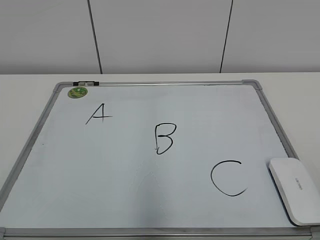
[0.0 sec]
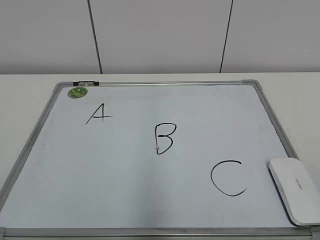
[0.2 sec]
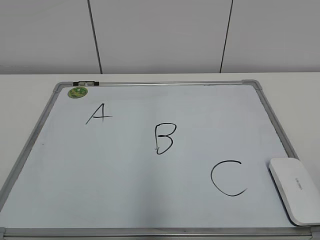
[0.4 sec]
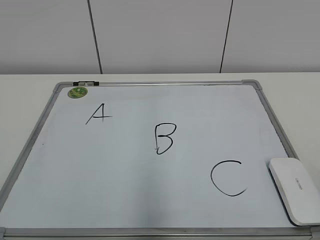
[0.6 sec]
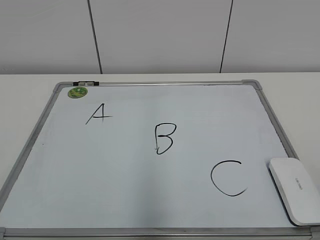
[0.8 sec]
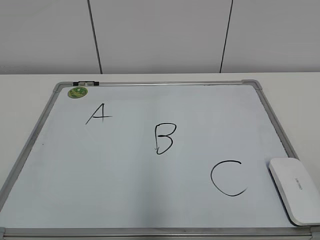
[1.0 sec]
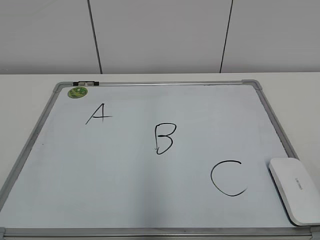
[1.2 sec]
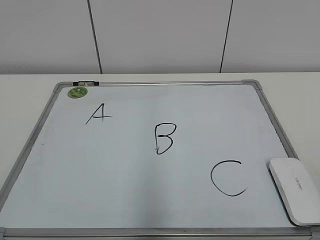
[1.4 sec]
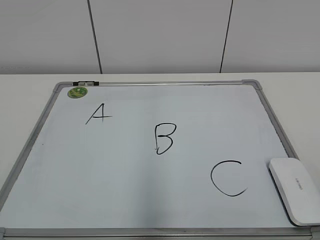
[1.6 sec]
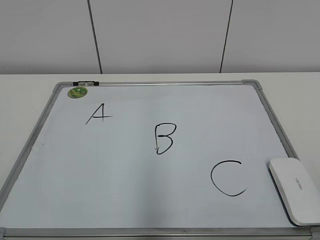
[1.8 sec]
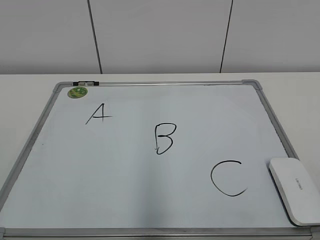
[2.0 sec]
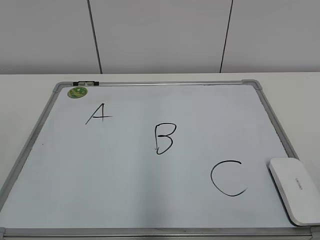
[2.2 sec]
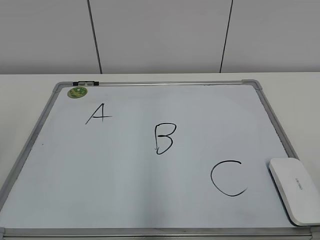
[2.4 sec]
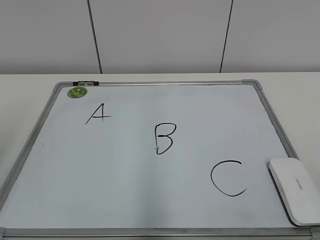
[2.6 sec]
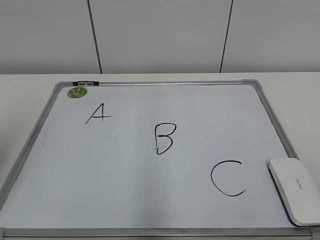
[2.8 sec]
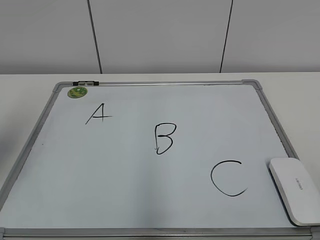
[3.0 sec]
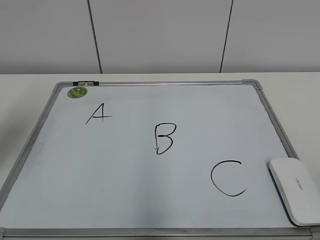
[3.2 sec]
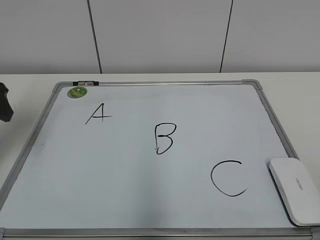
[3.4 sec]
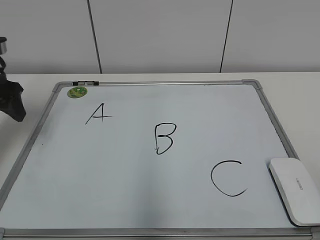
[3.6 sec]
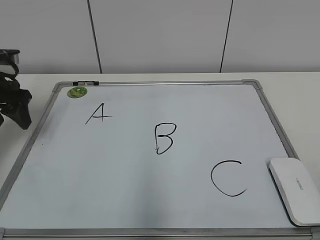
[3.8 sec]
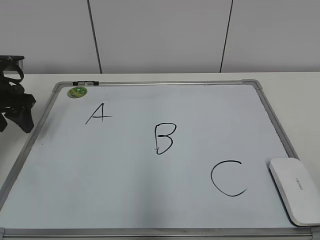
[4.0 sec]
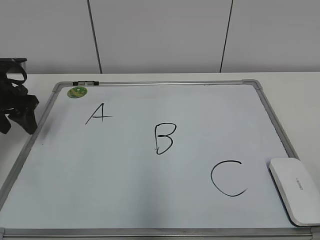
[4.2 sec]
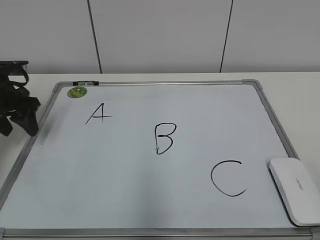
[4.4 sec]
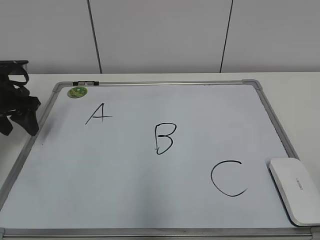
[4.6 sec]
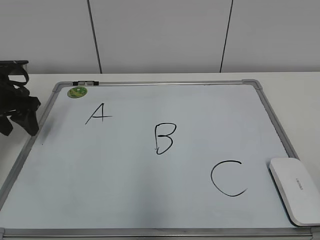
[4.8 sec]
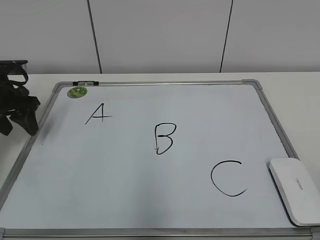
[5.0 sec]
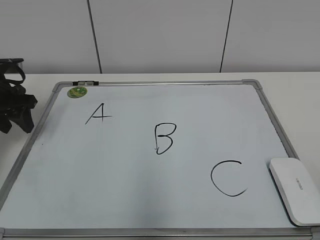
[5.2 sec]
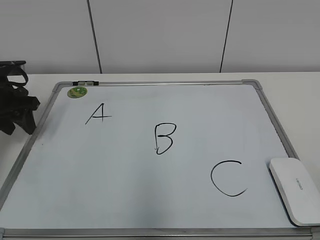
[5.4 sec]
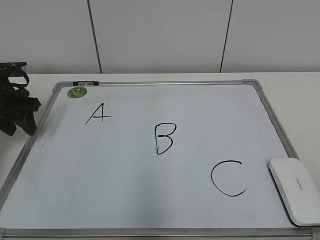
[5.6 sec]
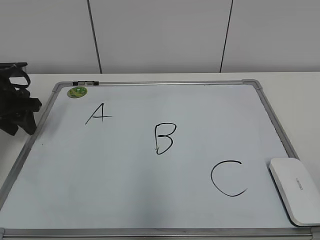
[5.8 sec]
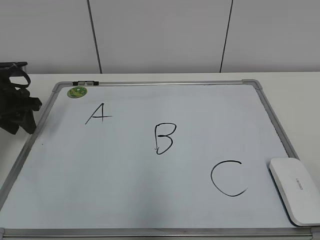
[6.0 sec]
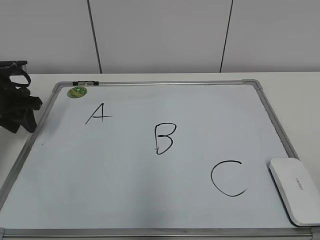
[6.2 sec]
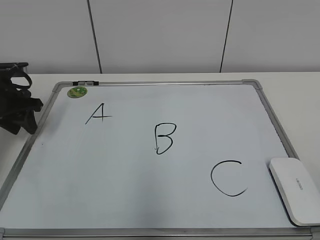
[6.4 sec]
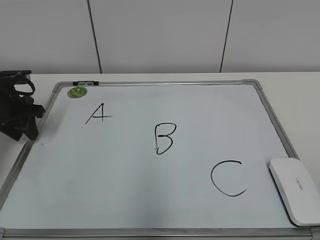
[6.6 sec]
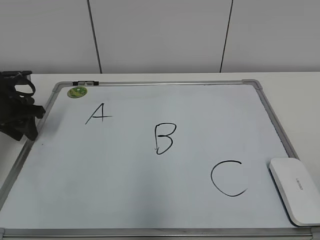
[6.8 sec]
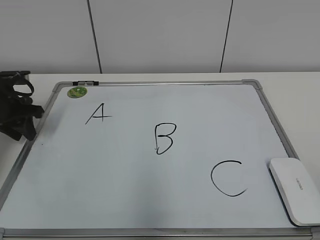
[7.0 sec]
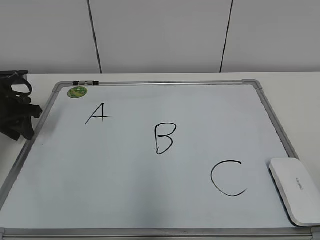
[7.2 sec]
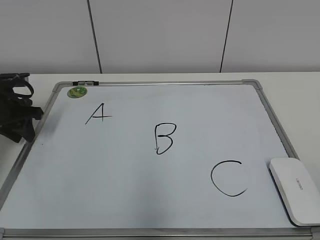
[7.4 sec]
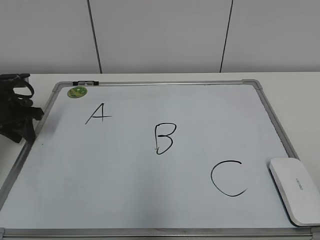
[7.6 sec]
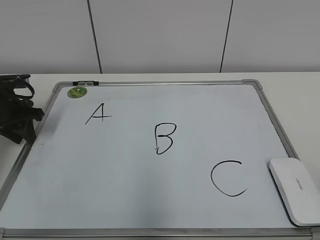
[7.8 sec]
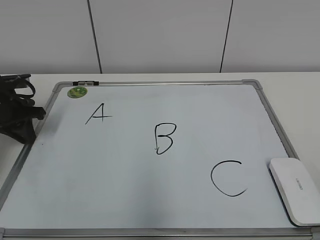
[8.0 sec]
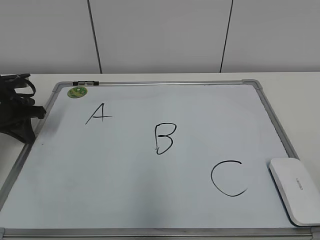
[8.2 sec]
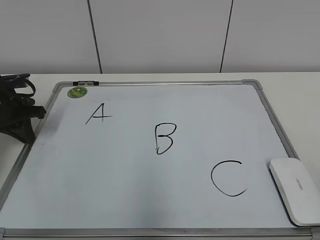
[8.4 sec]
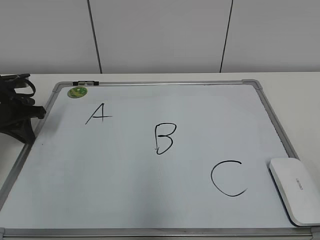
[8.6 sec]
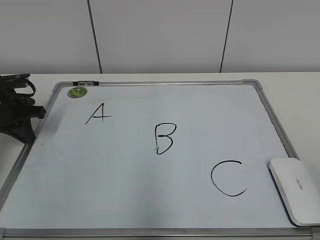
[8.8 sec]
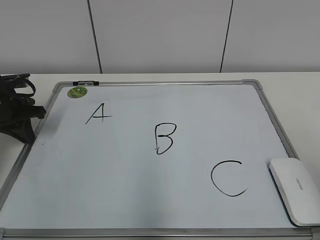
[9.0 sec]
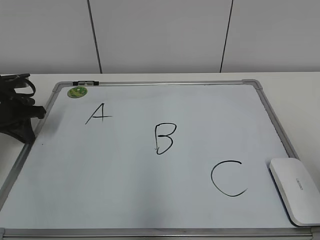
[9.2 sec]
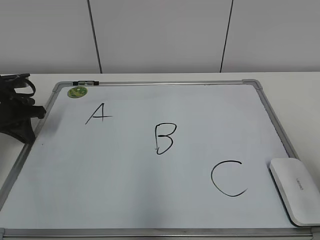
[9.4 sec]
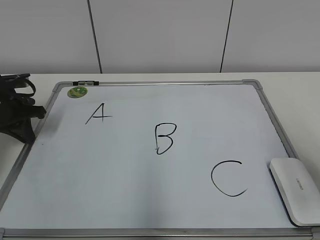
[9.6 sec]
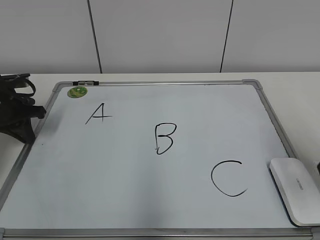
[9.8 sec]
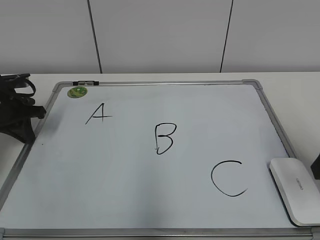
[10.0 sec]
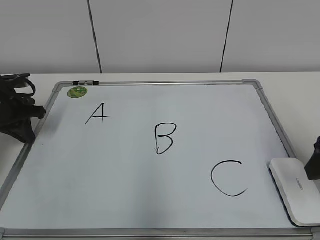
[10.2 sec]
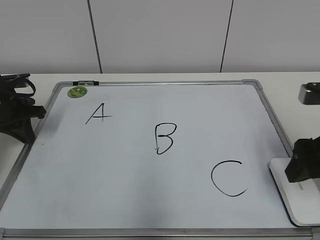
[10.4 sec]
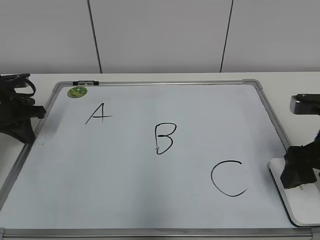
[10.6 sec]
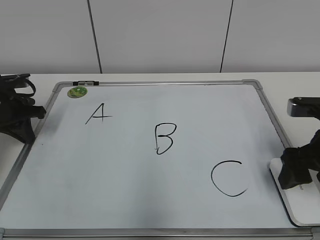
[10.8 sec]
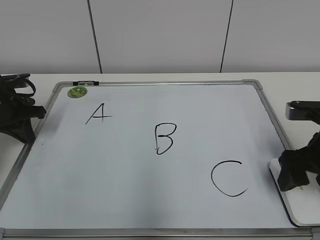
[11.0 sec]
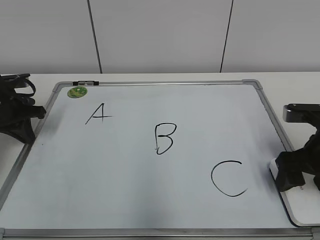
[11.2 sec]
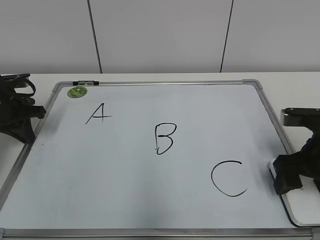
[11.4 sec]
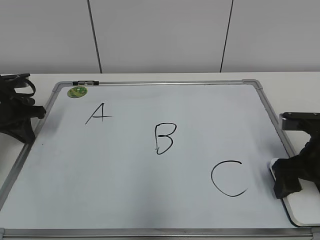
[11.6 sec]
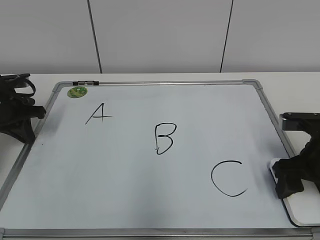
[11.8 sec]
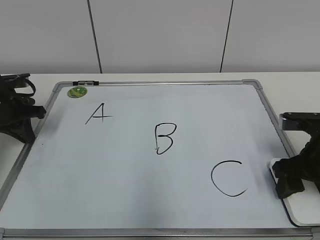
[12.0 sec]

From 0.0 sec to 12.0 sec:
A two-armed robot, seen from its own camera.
Task of the whole recording: pick up the eraser on the blackboard and erase the letter "B".
Step, from 0.0 sec to 8.0 sec: Hold the drawing board steady with your left hand.
Step, from 8.4 sec to 12.0 sec: Grab the eraser with your right hand.
From 1.6 sec to 3.0 sec: The left gripper moves forward, some 25 cm.
From 3.0 sec to 4.4 sec: The left gripper goes about 20 cm forward and downward.
From 6.0 sec to 7.6 sec: The grippers stay close to where they were, moving slightly.
From 9.0 sec to 10.4 sec: The right gripper moves forward and downward, approximately 20 cm, and opens.
From 10.4 sec to 12.0 sec: The right gripper travels downward by roughly 5 cm, and closes up.

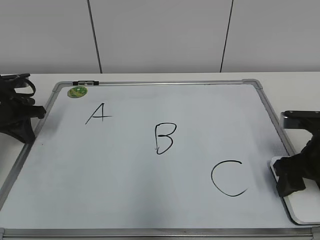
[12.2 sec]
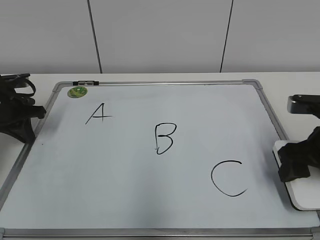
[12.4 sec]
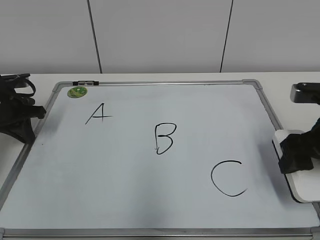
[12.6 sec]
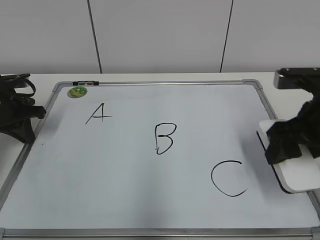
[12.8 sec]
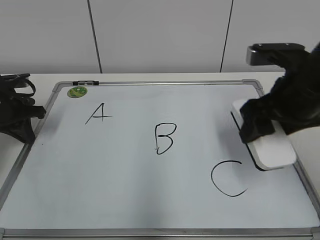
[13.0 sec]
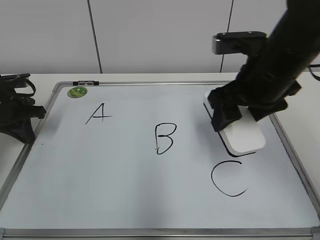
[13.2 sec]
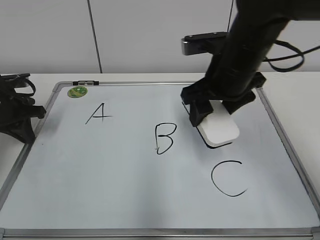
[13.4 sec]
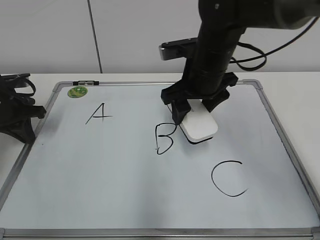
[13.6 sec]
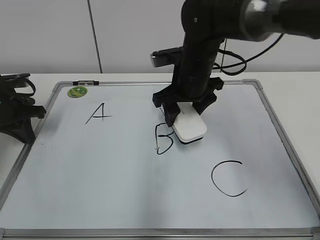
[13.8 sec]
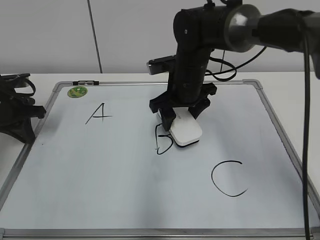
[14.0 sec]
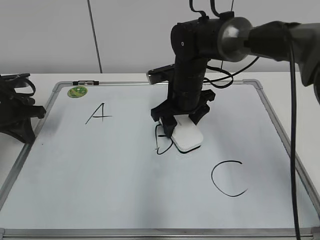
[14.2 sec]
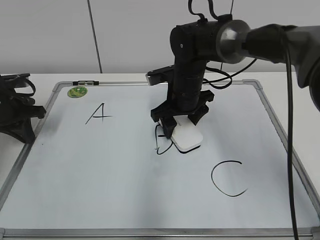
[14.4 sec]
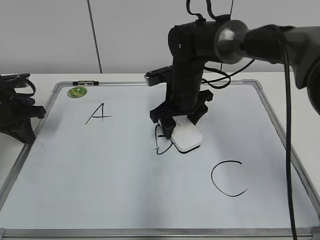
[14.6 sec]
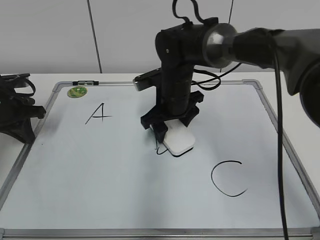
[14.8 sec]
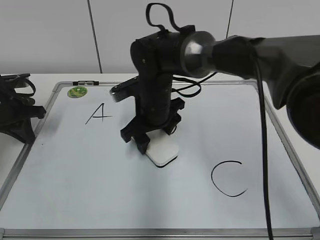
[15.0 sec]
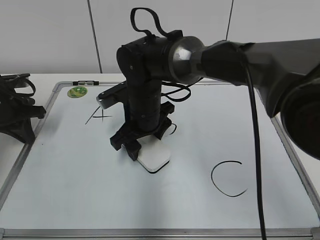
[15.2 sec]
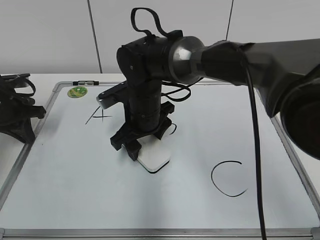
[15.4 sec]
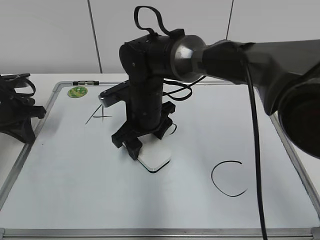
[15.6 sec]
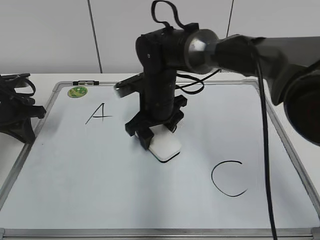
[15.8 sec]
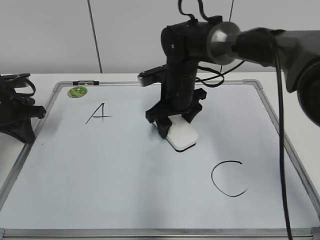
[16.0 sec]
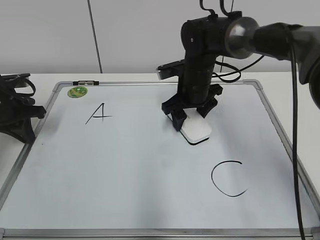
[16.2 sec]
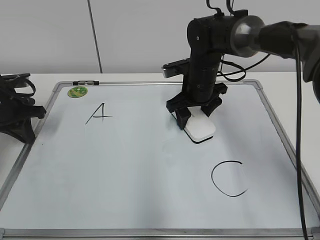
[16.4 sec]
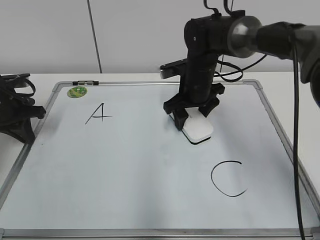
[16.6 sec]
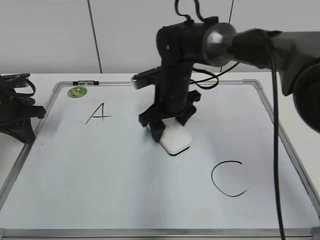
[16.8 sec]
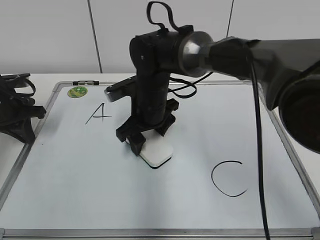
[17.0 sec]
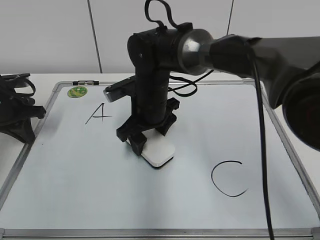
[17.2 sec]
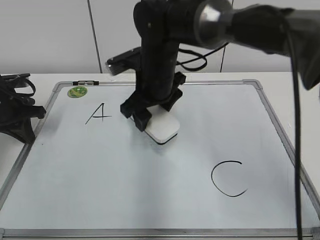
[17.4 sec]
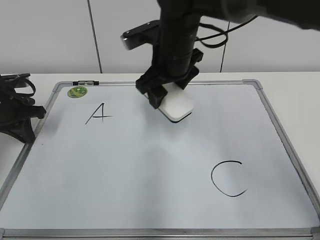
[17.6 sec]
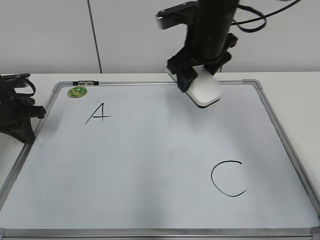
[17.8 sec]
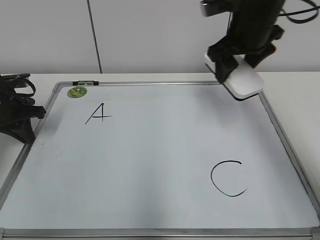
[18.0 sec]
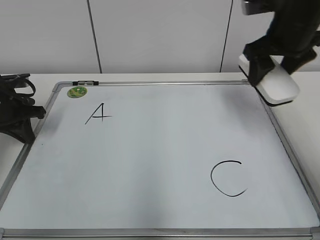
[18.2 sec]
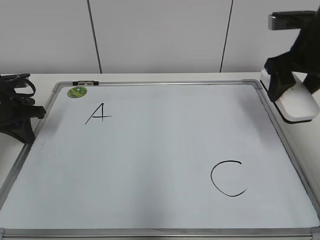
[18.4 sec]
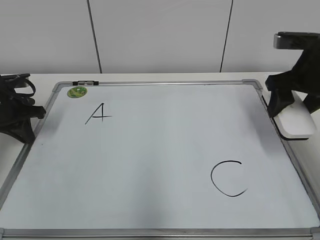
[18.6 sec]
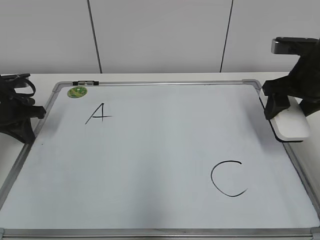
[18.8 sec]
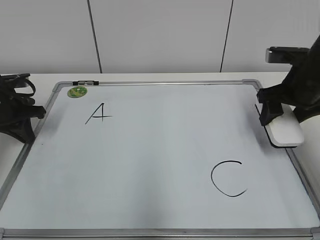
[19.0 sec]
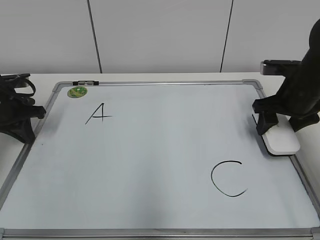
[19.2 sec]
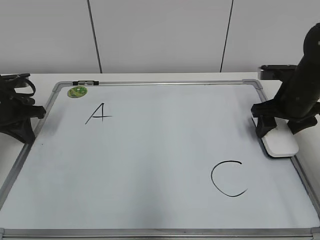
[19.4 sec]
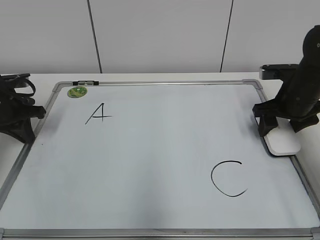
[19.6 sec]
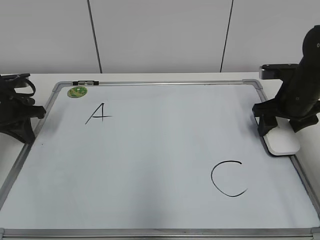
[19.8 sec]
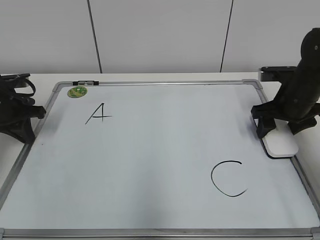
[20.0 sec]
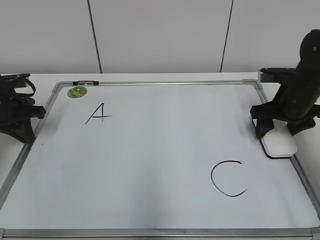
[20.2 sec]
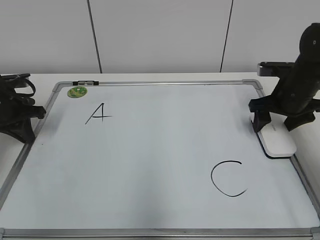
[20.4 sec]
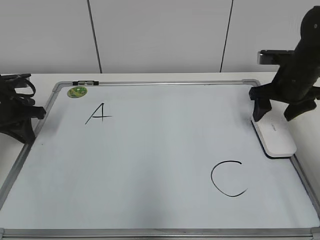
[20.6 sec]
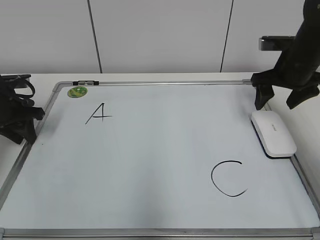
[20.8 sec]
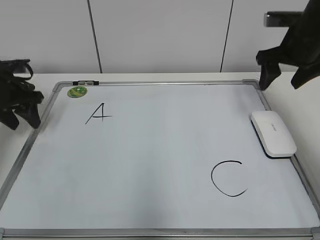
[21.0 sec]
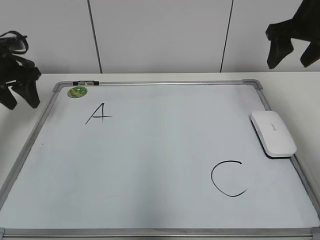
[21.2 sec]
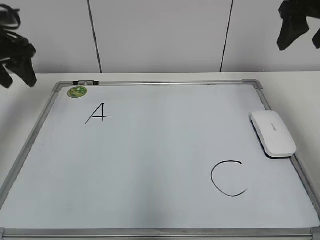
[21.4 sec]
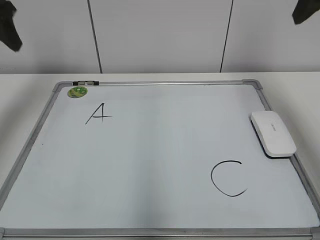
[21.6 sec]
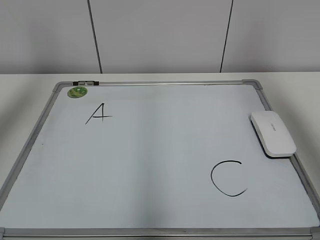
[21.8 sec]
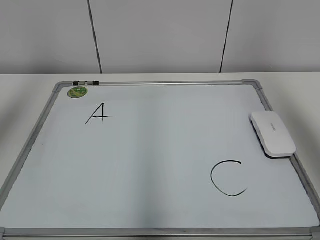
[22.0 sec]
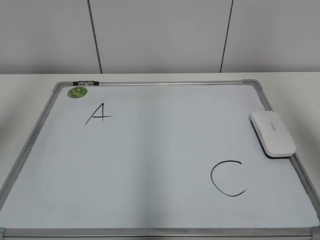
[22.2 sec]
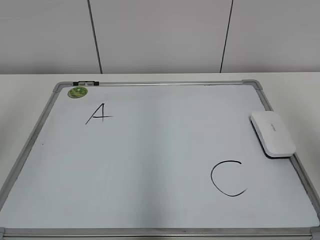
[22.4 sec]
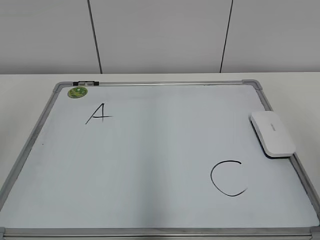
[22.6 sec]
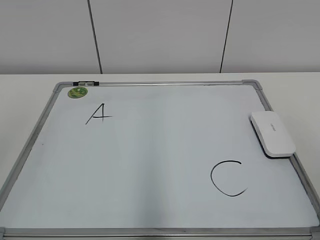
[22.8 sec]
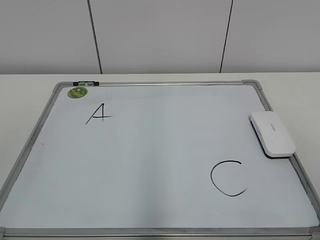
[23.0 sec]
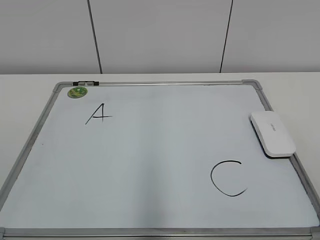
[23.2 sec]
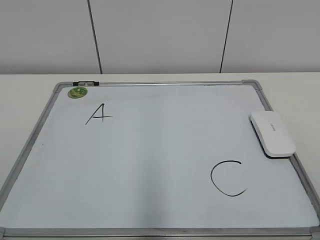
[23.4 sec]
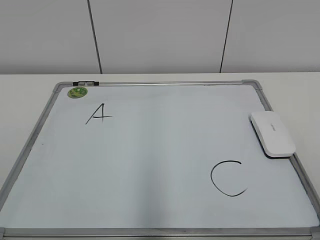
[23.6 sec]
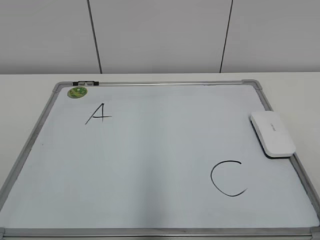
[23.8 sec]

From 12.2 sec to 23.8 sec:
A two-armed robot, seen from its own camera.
Task of the whole recording: pick up the eraser on the blackboard and erase the letter "B".
Step, from 12.2 sec to 16.8 sec: Erase the letter B with your right hand.
From 12.2 sec to 13.6 sec: The right gripper shifts roughly 20 cm to the left, forward and upward.
From 13.6 sec to 15.0 sec: The right gripper goes some 10 cm to the left and downward.
From 15.0 sec to 16.6 sec: The right gripper shifts some 10 cm to the right and forward.
From 16.6 sec to 18.0 sec: The right gripper travels upward and to the right by some 15 cm.
From 18.0 sec to 19.4 sec: The right gripper is displaced downward and to the right by roughly 15 cm.
From 19.4 sec to 21.0 sec: The left gripper opens. Meanwhile the right gripper heads upward, covering about 10 cm, and opens up.
From 21.0 sec to 22.4 sec: The right gripper is displaced backward and upward by about 35 cm, while the left gripper is displaced upward and backward by about 35 cm.
From 22.4 sec to 23.8 sec: The right gripper travels downward and backward by roughly 25 cm.
